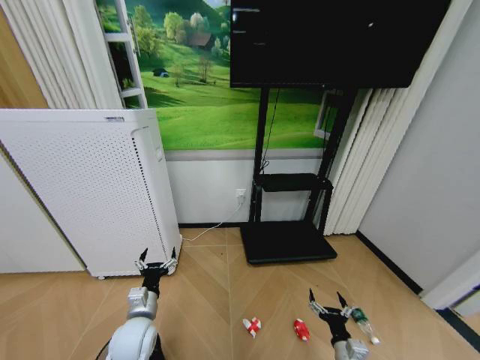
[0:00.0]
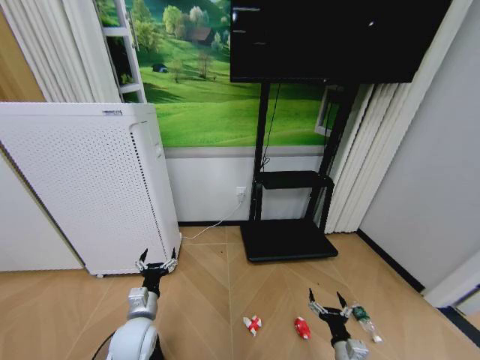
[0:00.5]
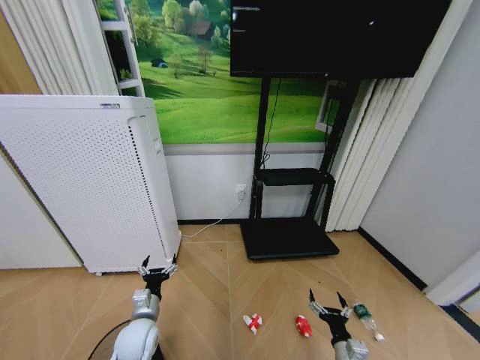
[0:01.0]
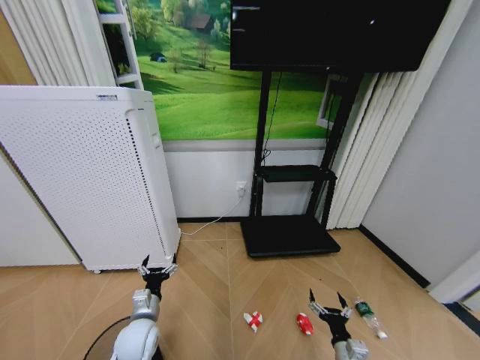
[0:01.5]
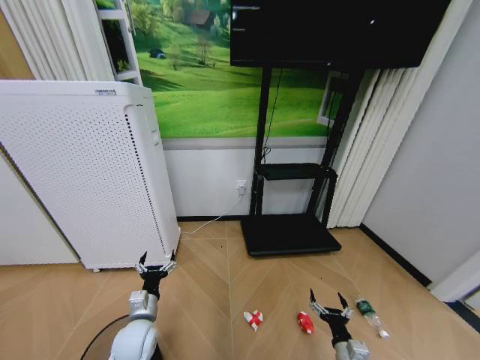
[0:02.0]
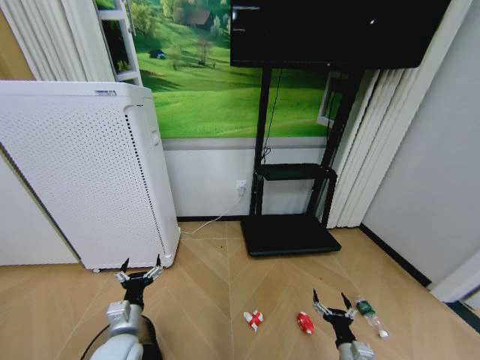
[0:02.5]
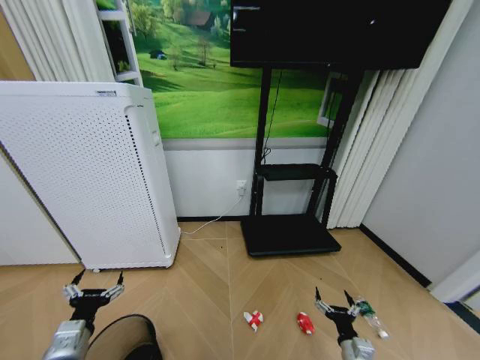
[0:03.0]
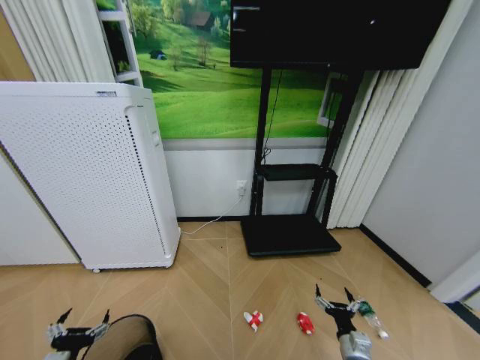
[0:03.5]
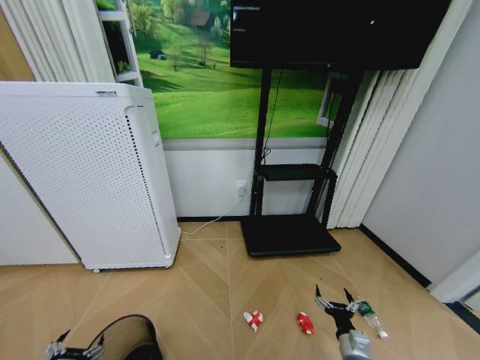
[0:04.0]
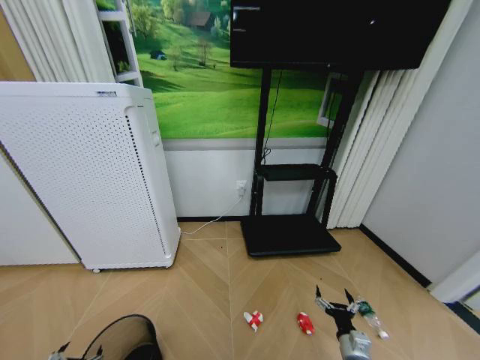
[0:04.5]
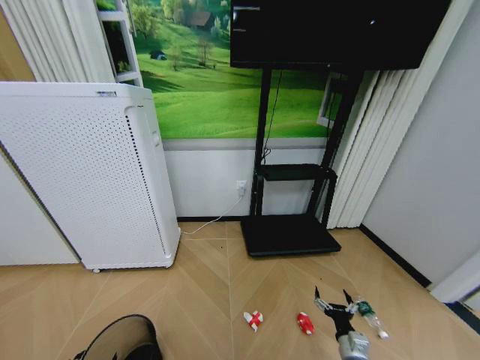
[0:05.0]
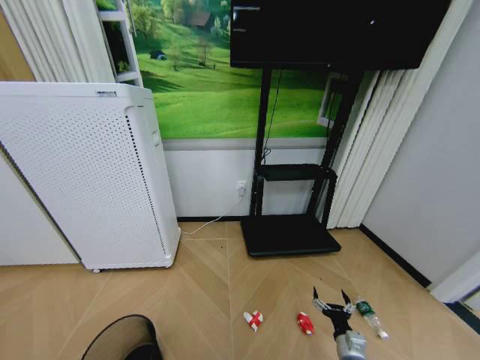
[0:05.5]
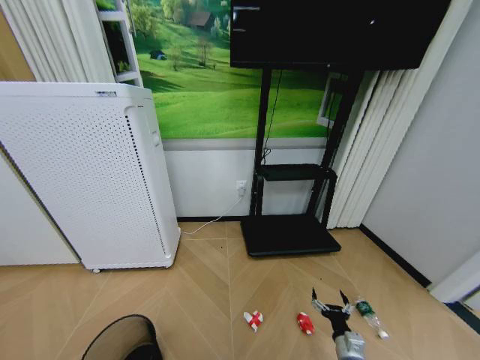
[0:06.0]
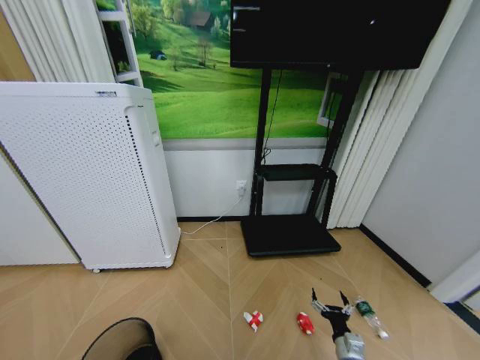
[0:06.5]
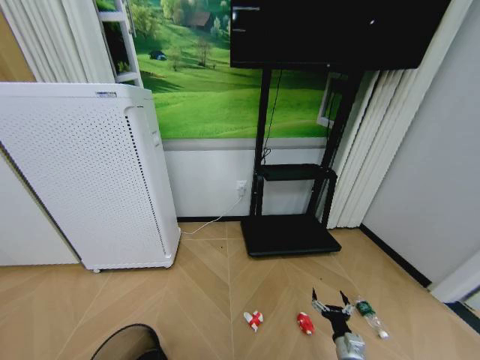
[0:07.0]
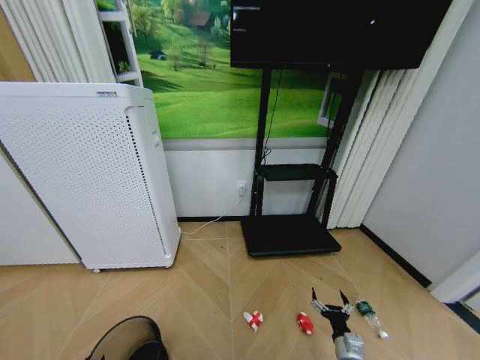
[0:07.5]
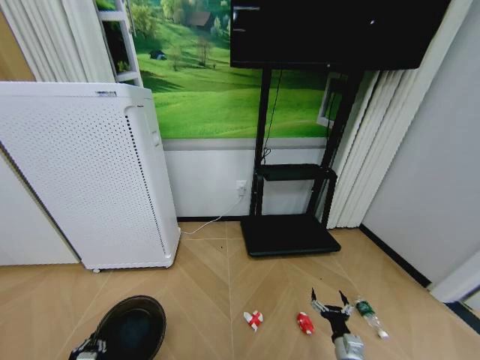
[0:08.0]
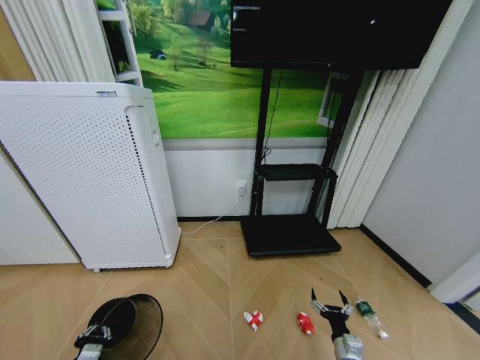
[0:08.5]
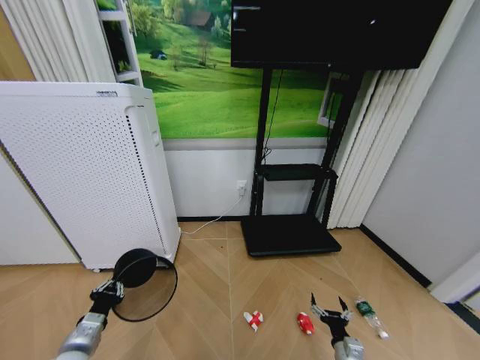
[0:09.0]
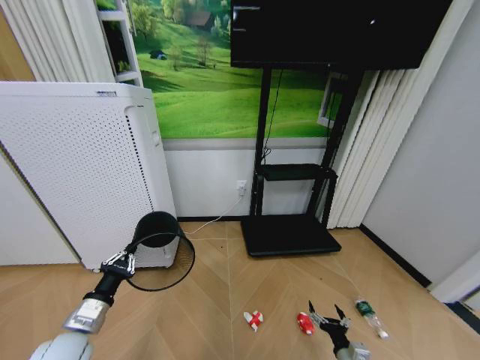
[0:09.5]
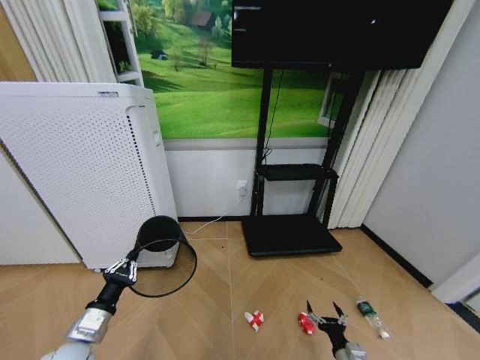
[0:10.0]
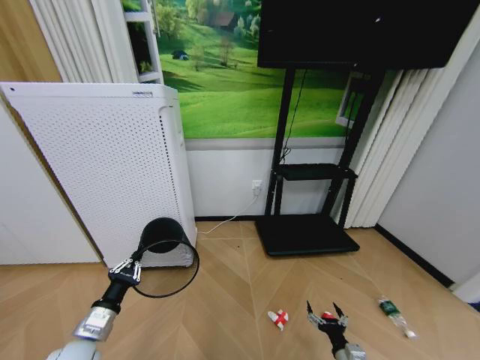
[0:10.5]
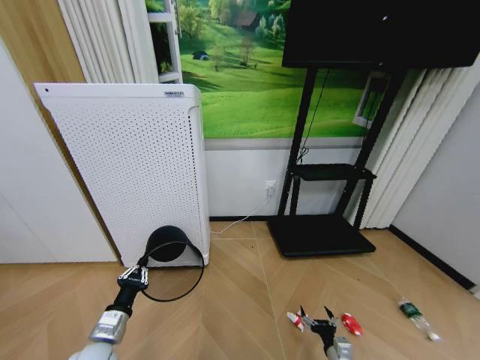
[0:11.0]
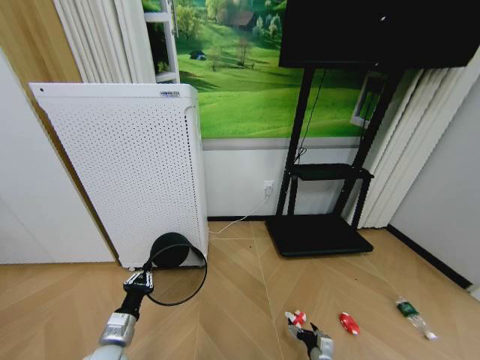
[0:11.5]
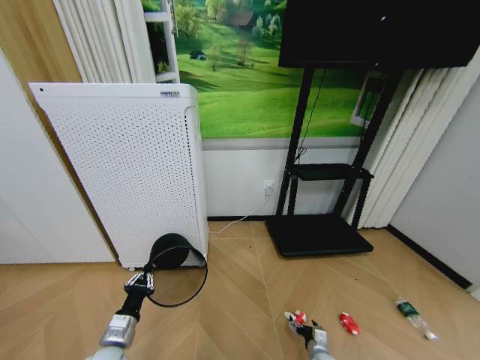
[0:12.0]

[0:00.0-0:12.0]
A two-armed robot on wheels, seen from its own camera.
Task of the whole recording: Pick up the trash bin and place the garbage on the floor into it.
0:00.0 to 0:02.0: There are only small adjustments of the grippers.
0:02.0 to 0:04.0: The left gripper shifts approximately 20 cm backward and to the left.
0:06.0 to 0:08.0: The left gripper closes its fingers.
0:08.0 to 0:10.0: The left gripper travels upward and forward by roughly 10 cm.
0:10.0 to 0:12.0: The left gripper is displaced downward by approximately 5 cm. The right gripper shifts about 10 cm downward and forward.

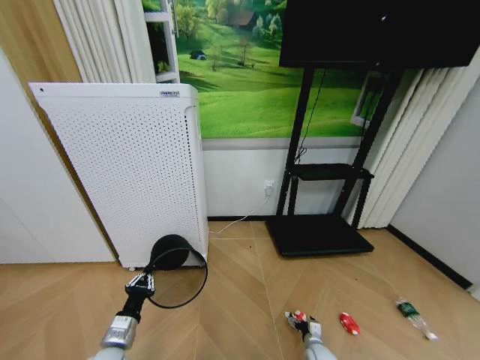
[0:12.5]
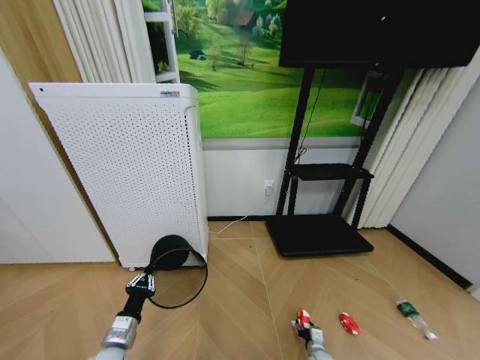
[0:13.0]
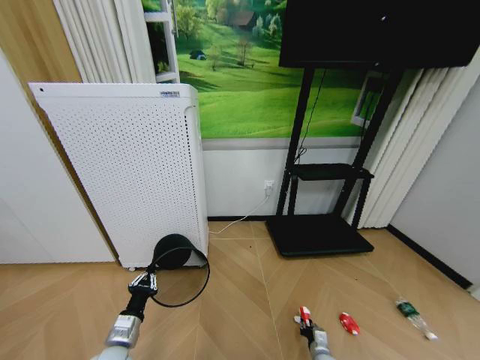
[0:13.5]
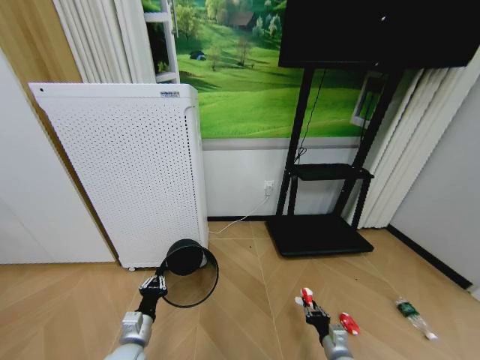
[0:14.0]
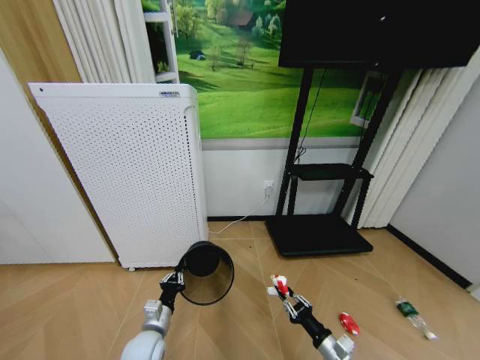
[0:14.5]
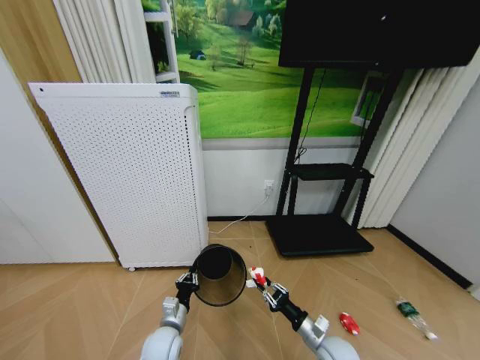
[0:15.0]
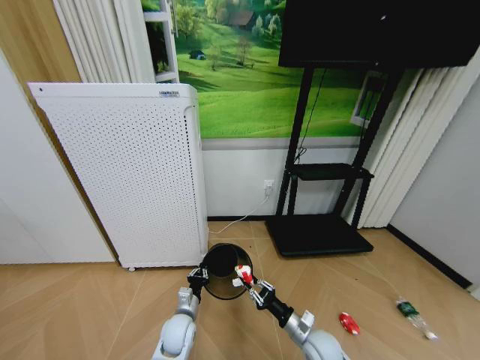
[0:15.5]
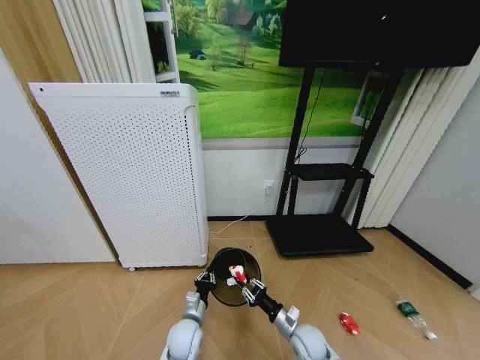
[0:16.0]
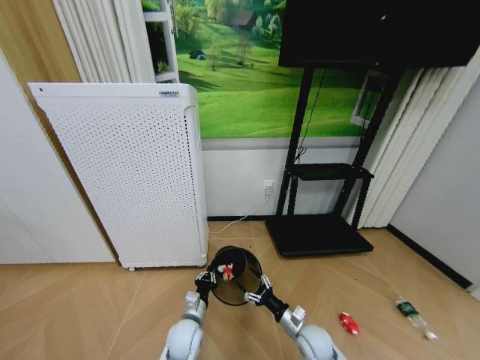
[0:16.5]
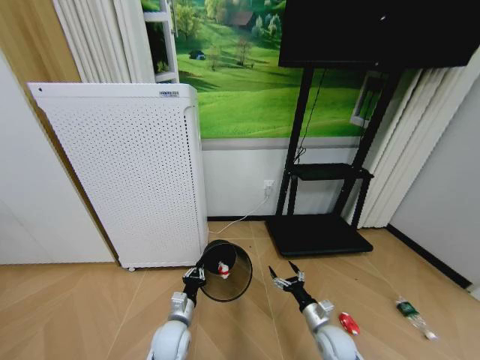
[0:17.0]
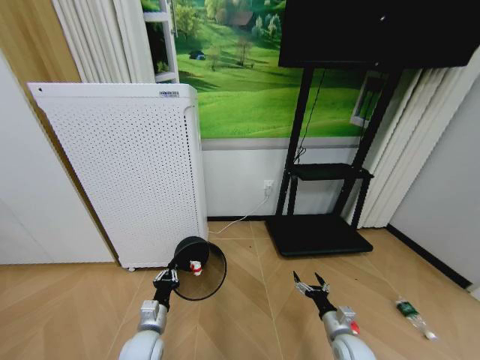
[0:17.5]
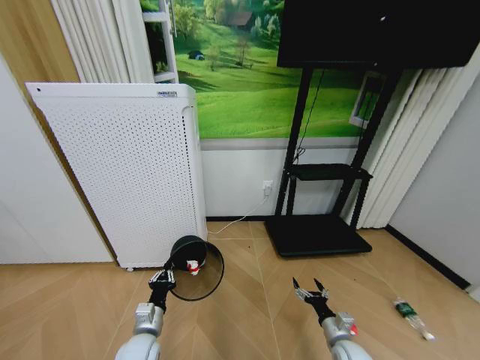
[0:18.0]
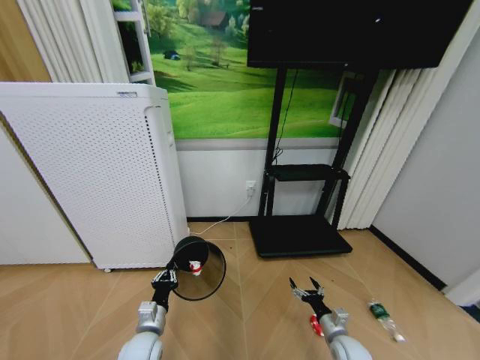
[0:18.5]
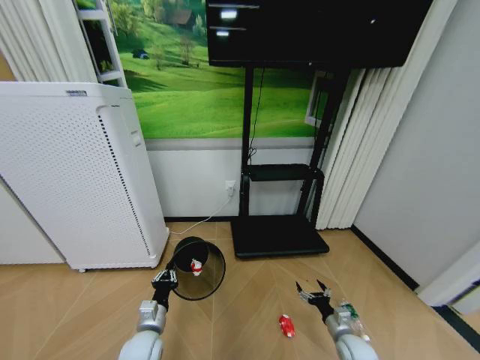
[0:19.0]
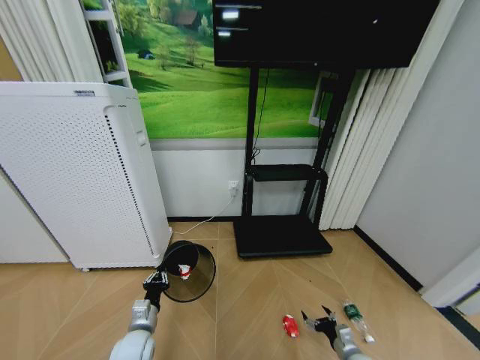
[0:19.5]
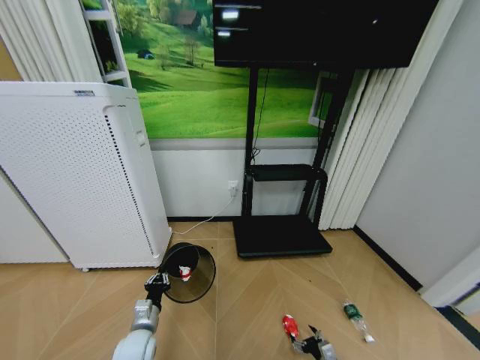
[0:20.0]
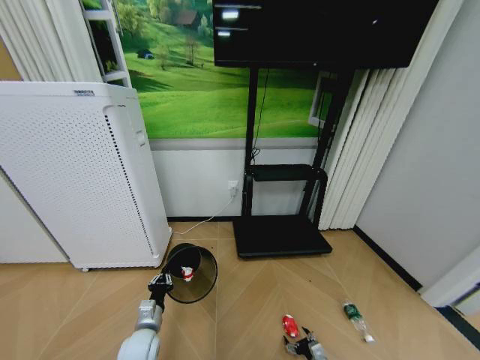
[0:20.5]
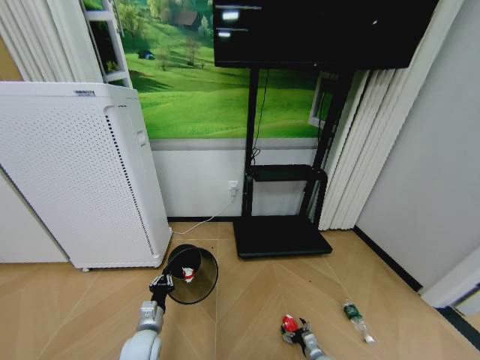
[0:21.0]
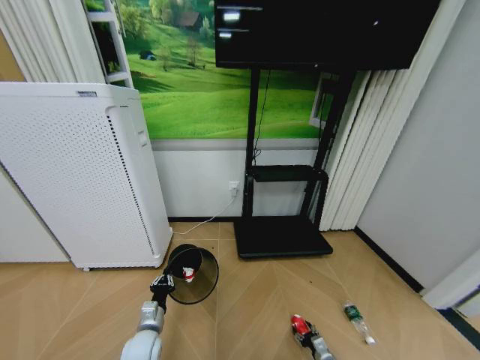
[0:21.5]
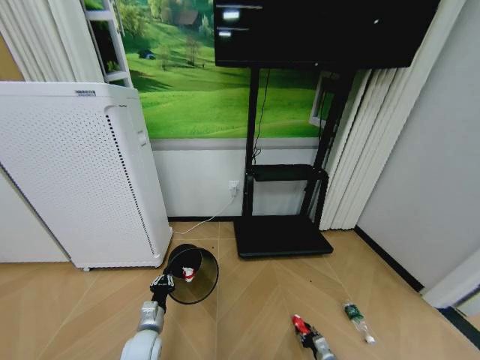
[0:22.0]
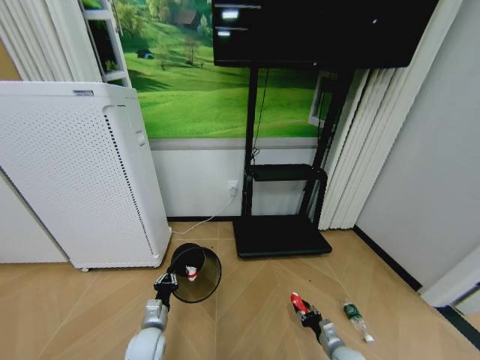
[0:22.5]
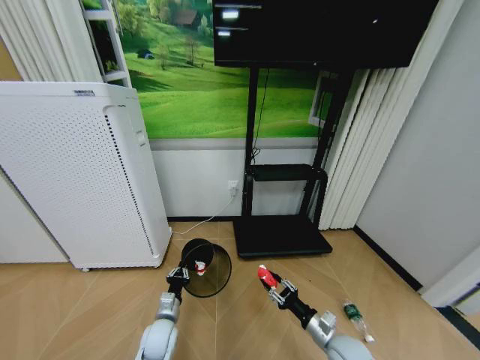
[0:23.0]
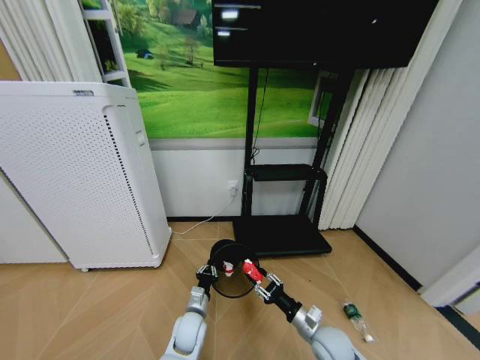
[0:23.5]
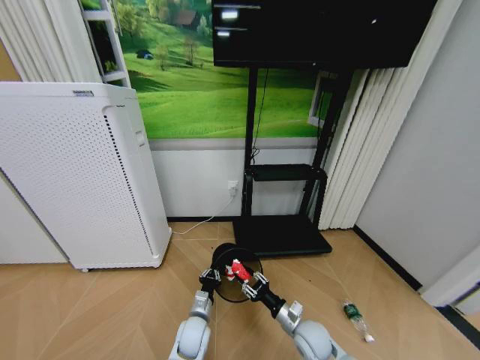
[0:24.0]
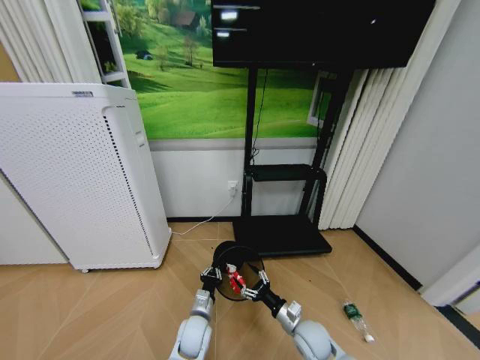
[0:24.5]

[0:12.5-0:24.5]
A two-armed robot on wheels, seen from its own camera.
Task of the whole recording: Pick up the trash bin and place the garbage on the floor into it.
0:12.5 to 0:14.5: The right gripper moves upward and backward, approximately 20 cm, and closes up. Meanwhile the left gripper heads to the right, covering about 5 cm.
0:14.5 to 0:16.5: The left gripper moves to the right, some 10 cm; the right gripper shifts some 10 cm forward and to the left, and opens its fingers.
0:16.5 to 0:18.5: The right gripper travels to the right by about 10 cm. Meanwhile the left gripper moves to the left, approximately 10 cm.
0:18.5 to 0:20.5: The right gripper moves downward, some 15 cm.
0:20.5 to 0:22.5: The right gripper is displaced upward by about 10 cm, and closes up.
0:22.5 to 0:24.5: The left gripper goes some 15 cm to the right, while the right gripper shifts about 15 cm to the left and upward, and opens its fingers.

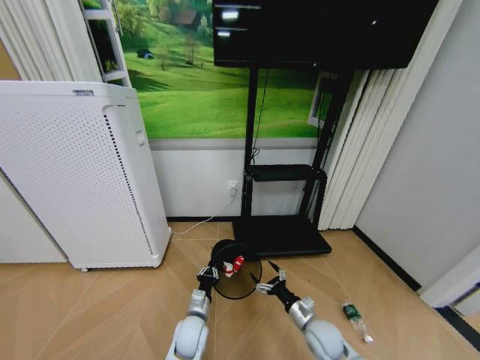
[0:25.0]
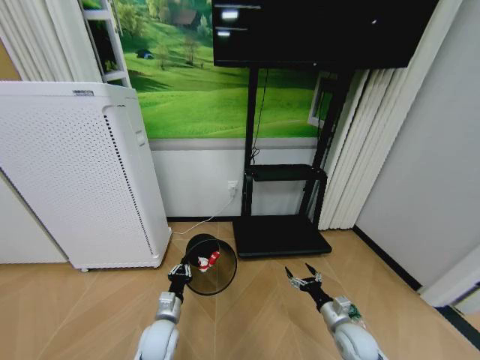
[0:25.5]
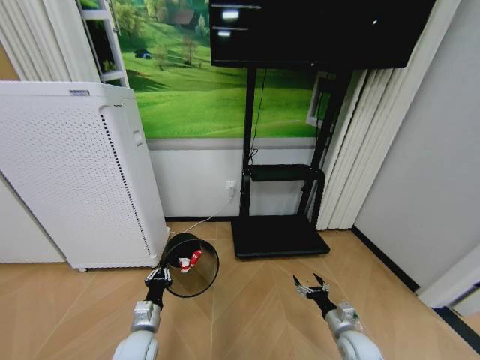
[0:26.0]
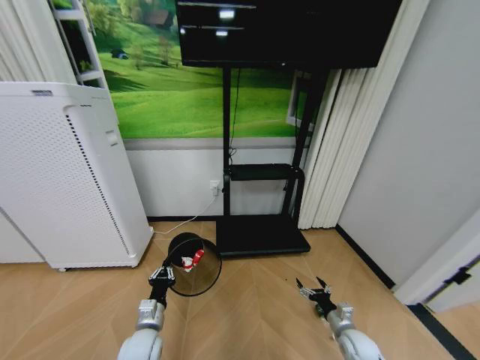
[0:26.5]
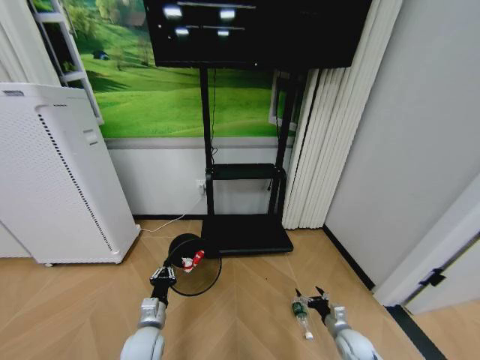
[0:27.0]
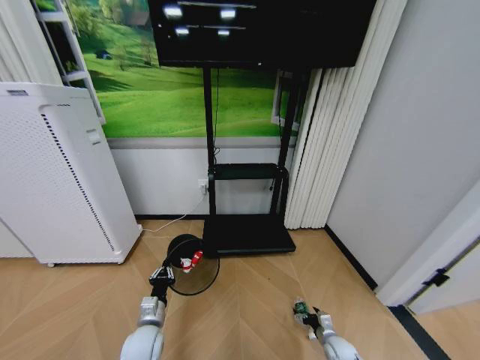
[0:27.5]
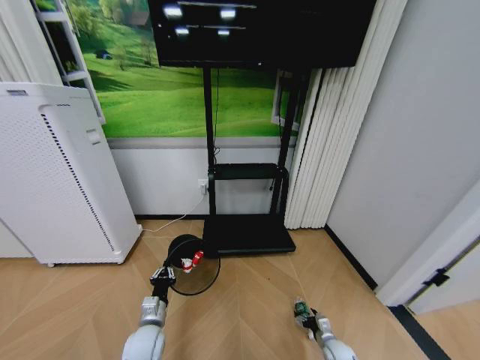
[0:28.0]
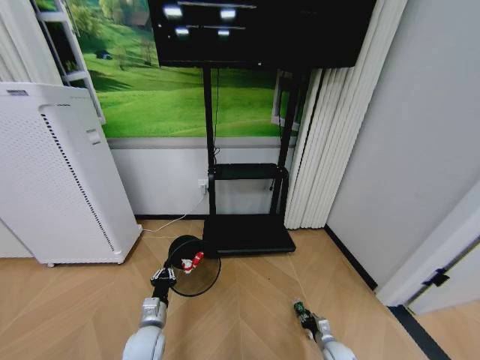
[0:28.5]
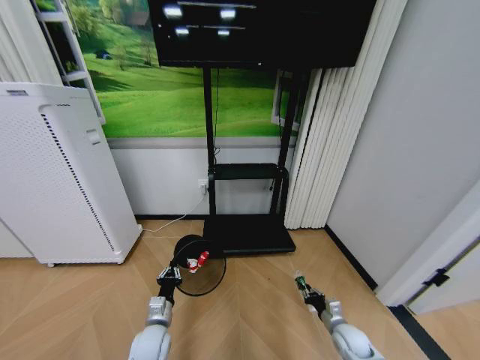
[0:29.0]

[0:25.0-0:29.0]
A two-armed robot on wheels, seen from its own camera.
Task of the whole recording: Pick up the trash bin and place the garbage on the floor into it.
0:25.0 to 0:27.0: The left gripper travels to the left by about 10 cm, while the right gripper is displaced to the right and downward by some 15 cm.
0:27.0 to 0:29.0: The right gripper travels downward and back again, approximately 10 cm each way, and closes.
